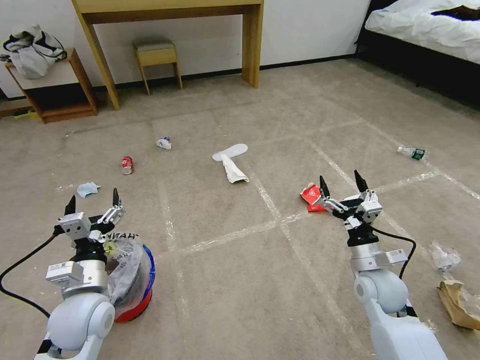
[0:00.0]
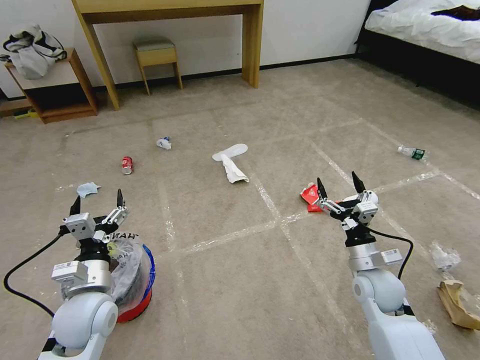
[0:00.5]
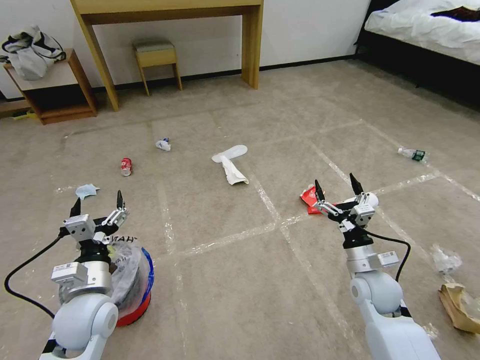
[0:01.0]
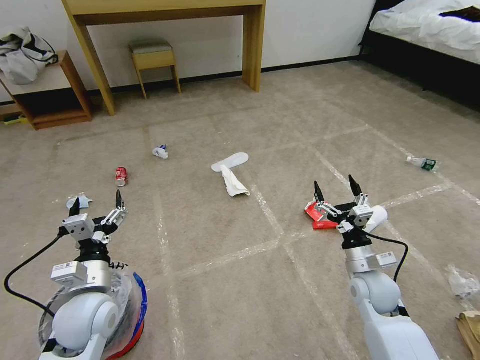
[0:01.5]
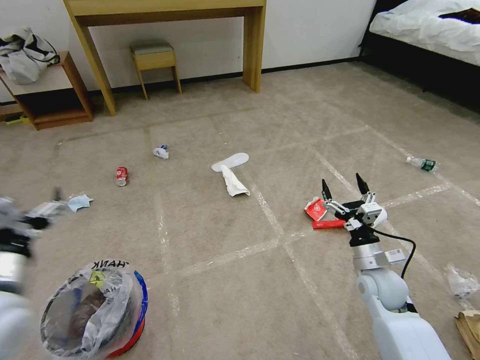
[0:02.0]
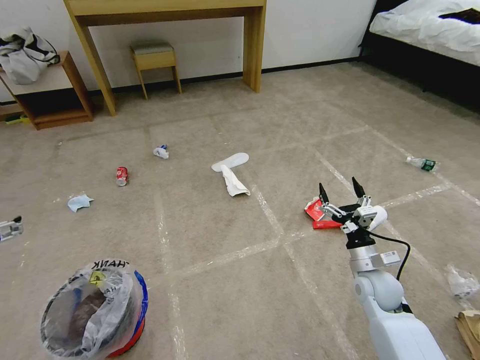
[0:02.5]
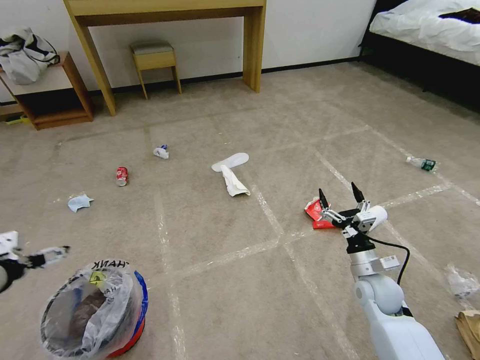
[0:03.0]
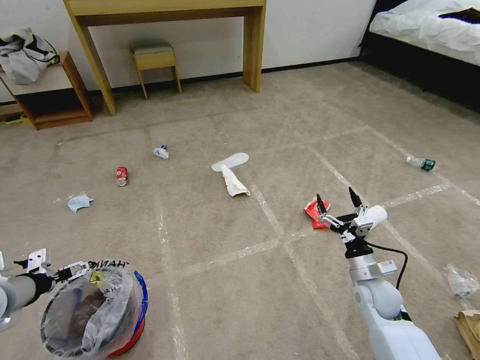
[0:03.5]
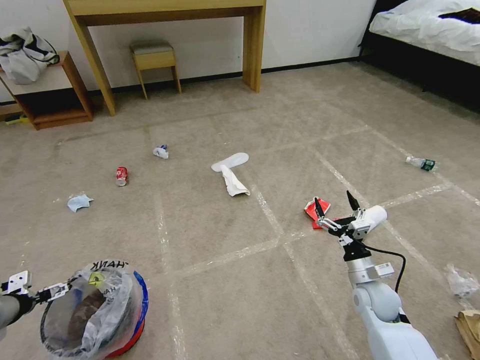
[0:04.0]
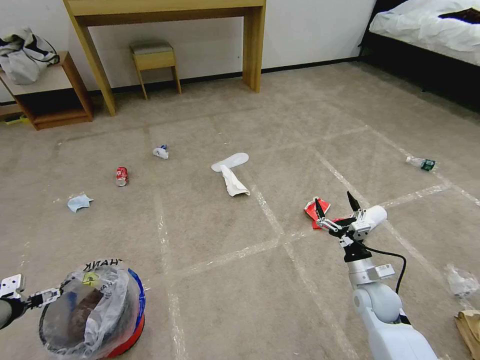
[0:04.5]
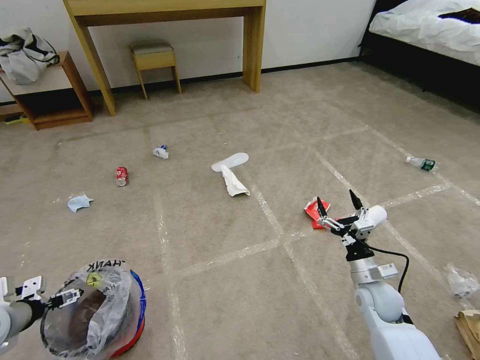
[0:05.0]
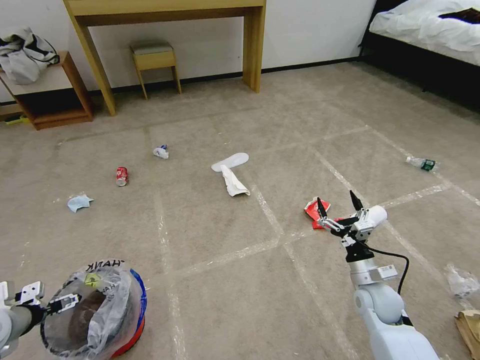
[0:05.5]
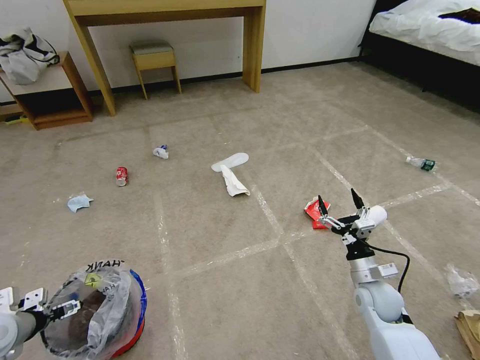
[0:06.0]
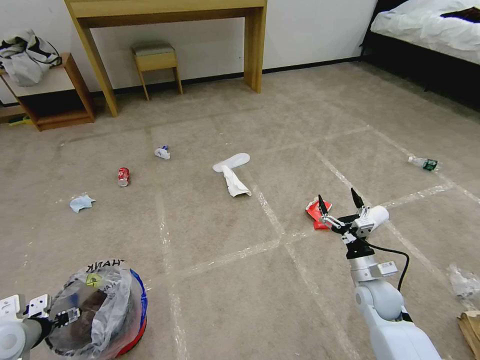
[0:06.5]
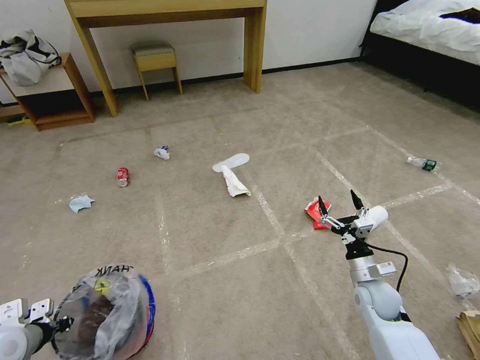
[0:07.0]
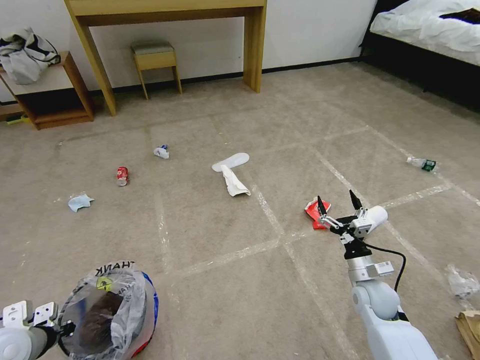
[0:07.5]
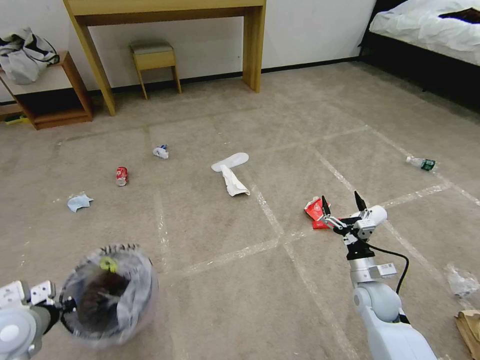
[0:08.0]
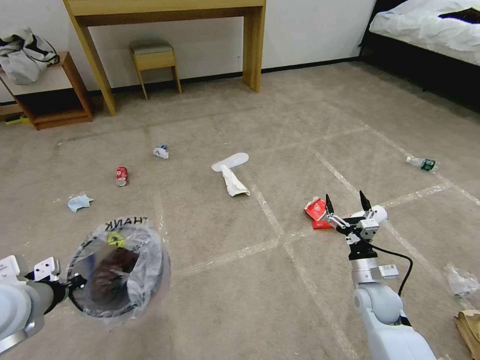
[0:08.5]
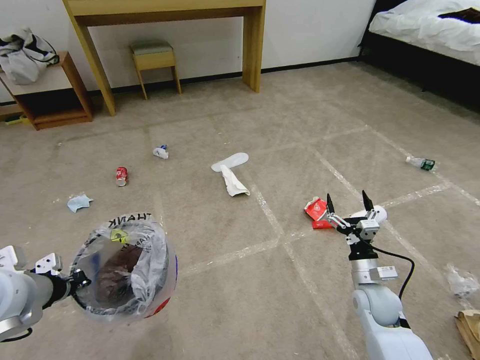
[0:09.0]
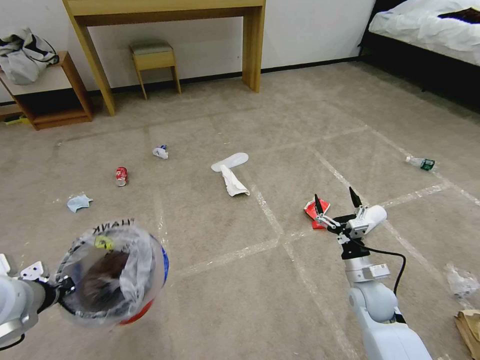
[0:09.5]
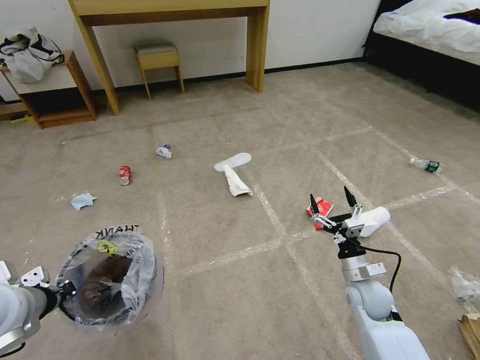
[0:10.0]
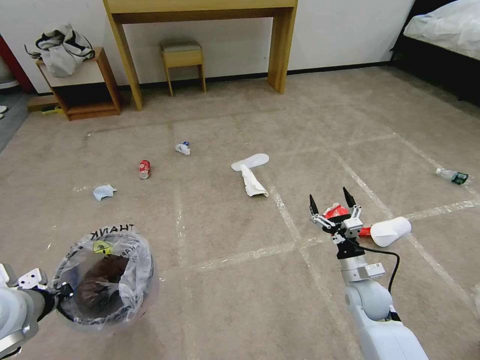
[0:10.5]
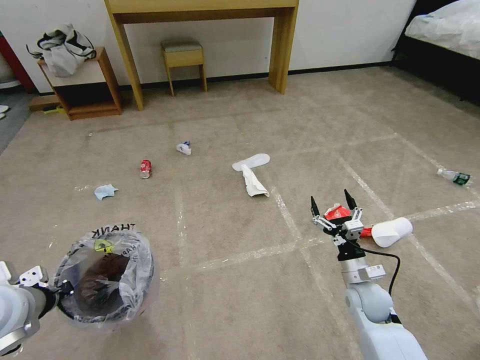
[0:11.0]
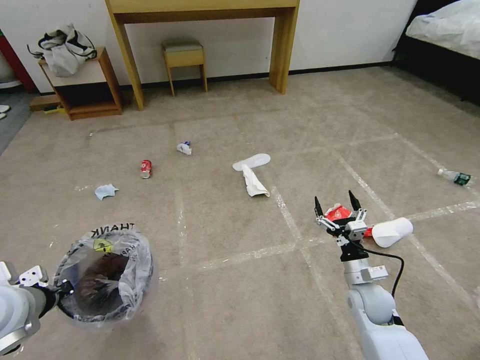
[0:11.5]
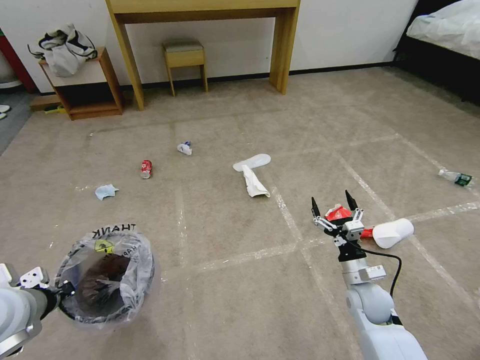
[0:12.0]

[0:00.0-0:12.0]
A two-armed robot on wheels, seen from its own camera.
Task of the whole recording: Pick up the trash bin and place the garbage on the floor into it.
0:02.0 to 0:04.0: The right gripper shifts by roughly 5 cm. Meanwhile the left gripper is displaced to the left and downward by approximately 20 cm.
0:04.0 to 0:06.0: There are only small adjustments of the grippers.
0:06.0 to 0:08.0: The left gripper heads to the right, covering roughly 5 cm, and closes its fingers.
0:08.0 to 0:10.0: The left gripper is displaced upward by approximately 10 cm.

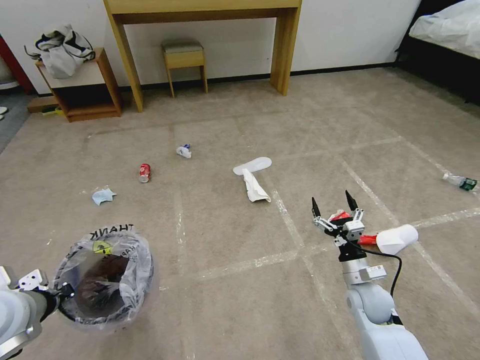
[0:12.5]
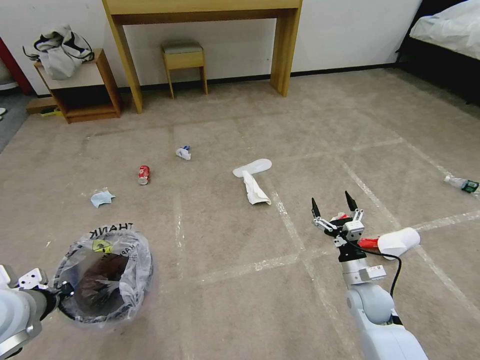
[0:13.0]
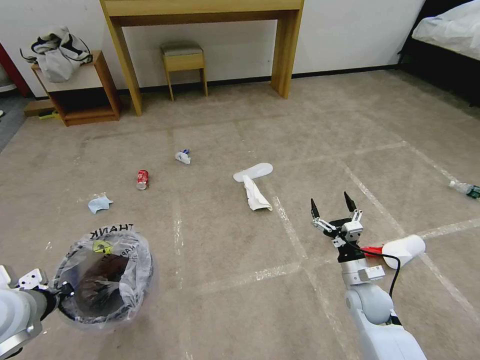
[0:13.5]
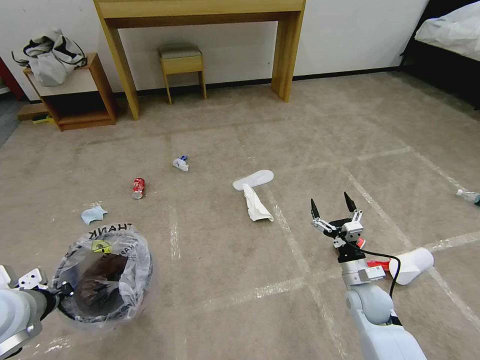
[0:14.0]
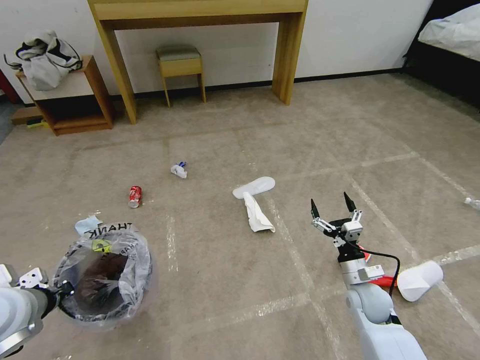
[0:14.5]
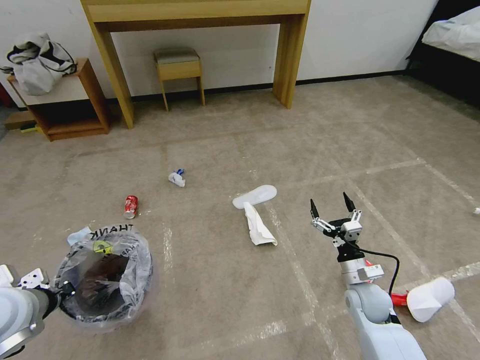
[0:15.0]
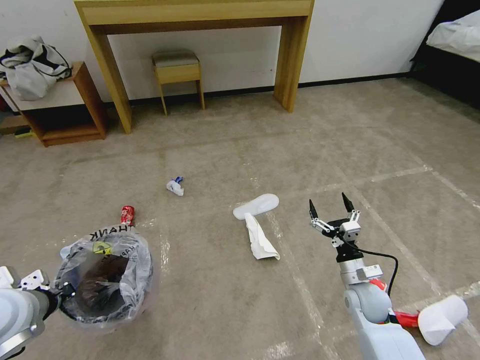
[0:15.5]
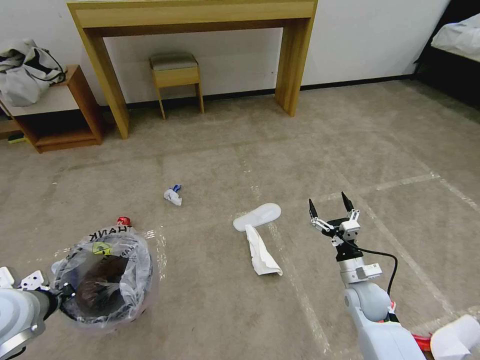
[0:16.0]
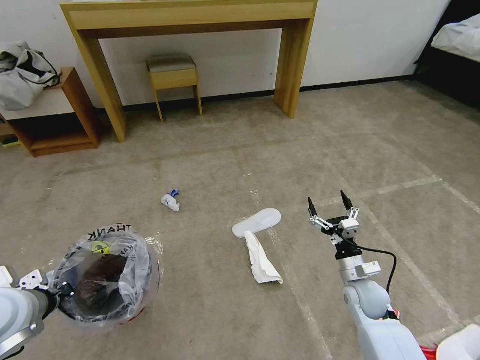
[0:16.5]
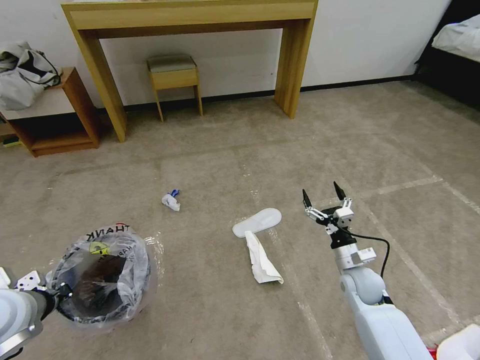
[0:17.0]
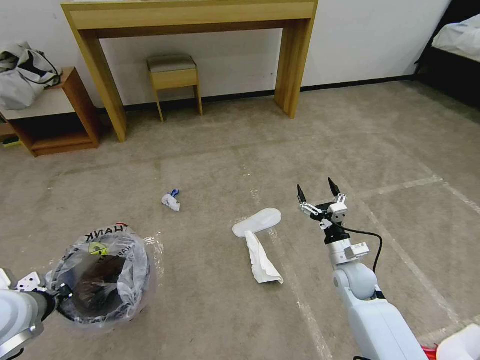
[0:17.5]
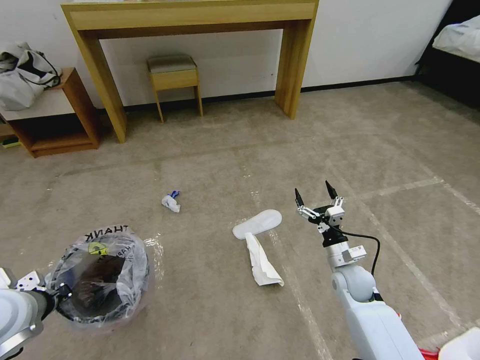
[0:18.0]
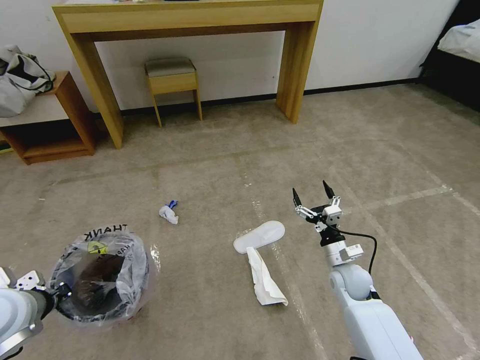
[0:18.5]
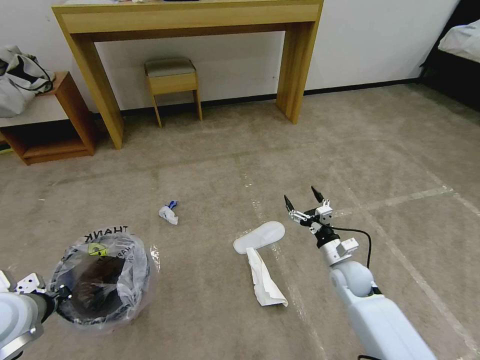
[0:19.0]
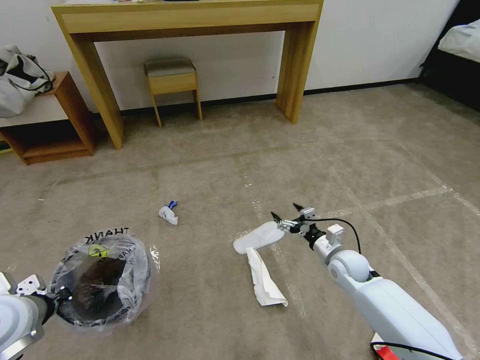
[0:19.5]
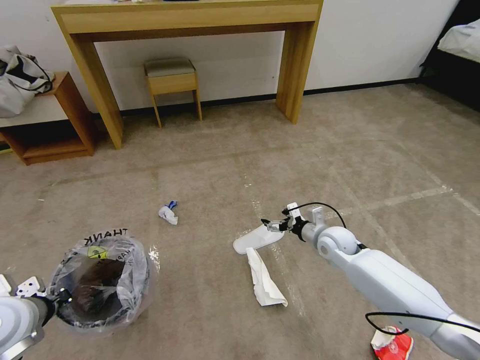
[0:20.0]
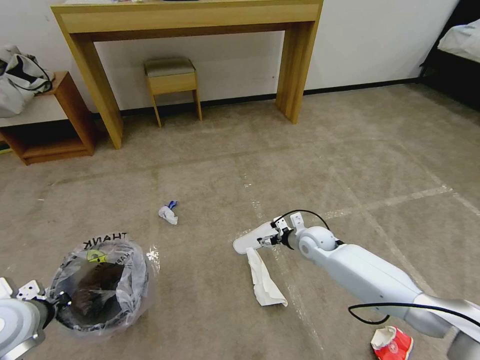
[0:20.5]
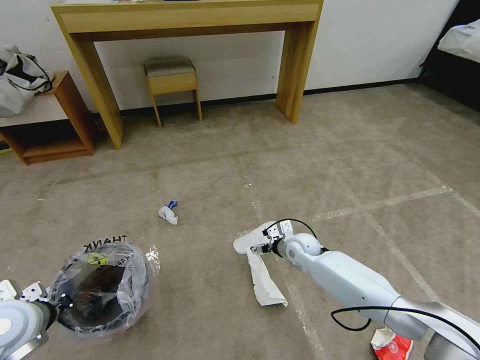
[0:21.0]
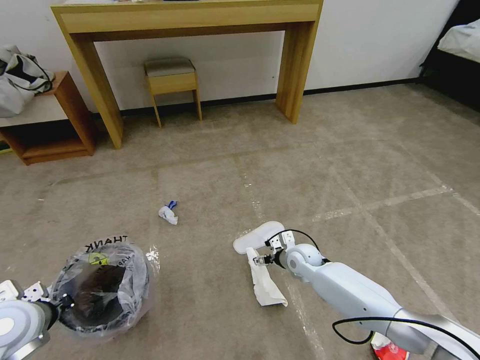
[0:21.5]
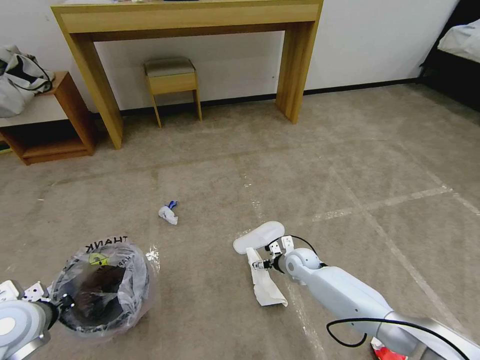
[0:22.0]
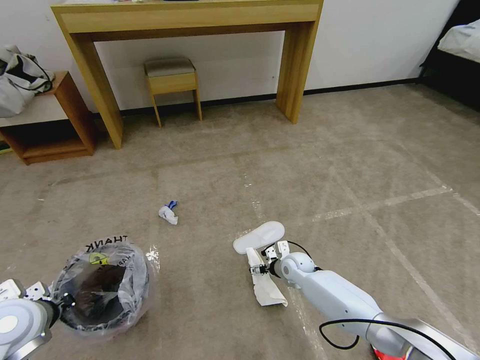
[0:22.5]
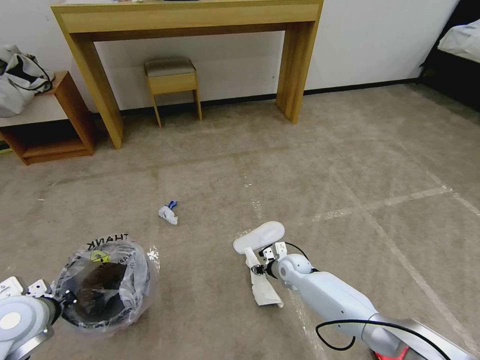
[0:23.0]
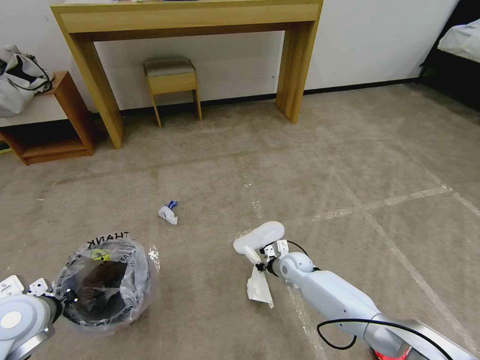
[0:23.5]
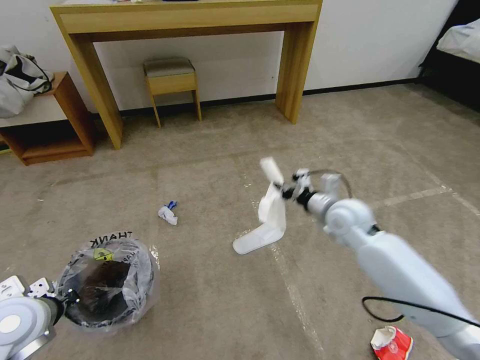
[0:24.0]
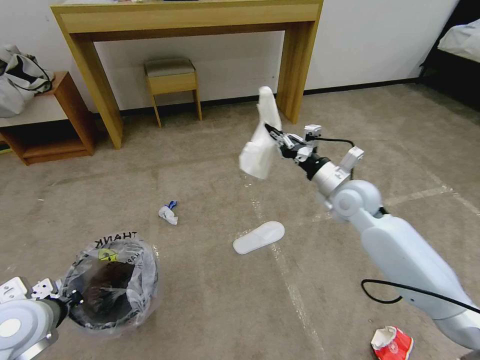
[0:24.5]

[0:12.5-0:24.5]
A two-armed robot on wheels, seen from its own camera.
Task of the whole recording: Pick up the trash bin and place the garbage on the floor into it.
0:16.5 to 0:18.5: The grippers move only a little.
0:18.5 to 0:20.5: The right gripper goes roughly 10 cm forward and to the left.
0:20.5 to 0:22.5: The right gripper travels downward by some 10 cm.
0:22.5 to 0:24.5: The right gripper heads upward, covering roughly 30 cm, and closes.

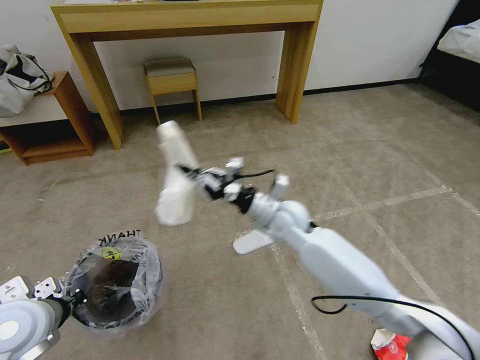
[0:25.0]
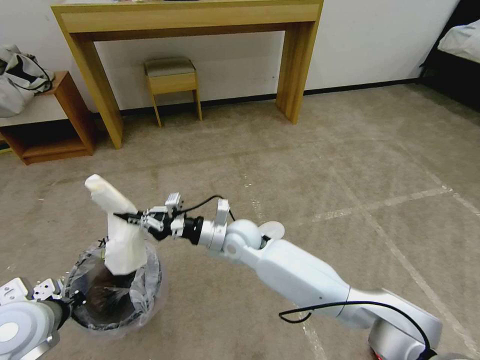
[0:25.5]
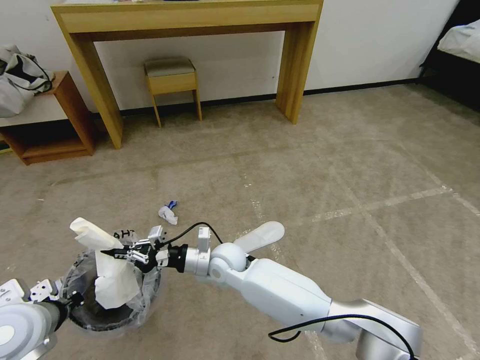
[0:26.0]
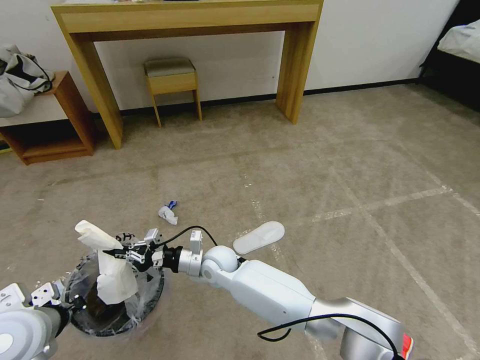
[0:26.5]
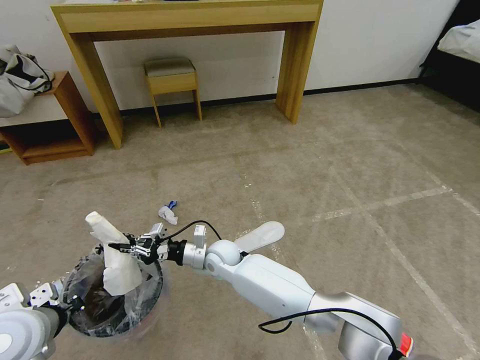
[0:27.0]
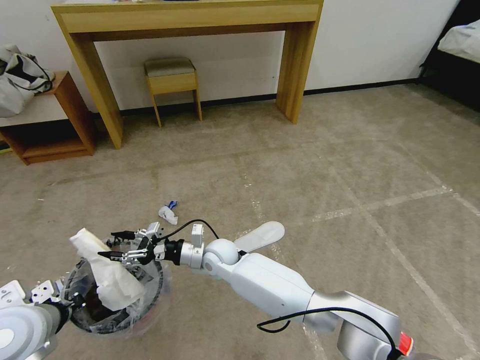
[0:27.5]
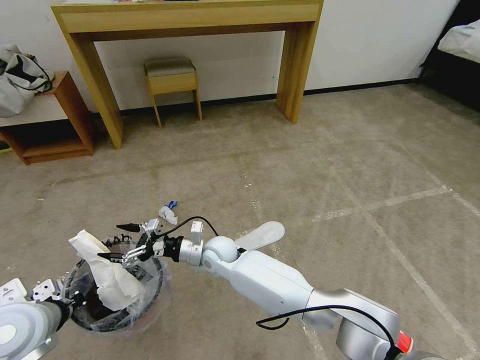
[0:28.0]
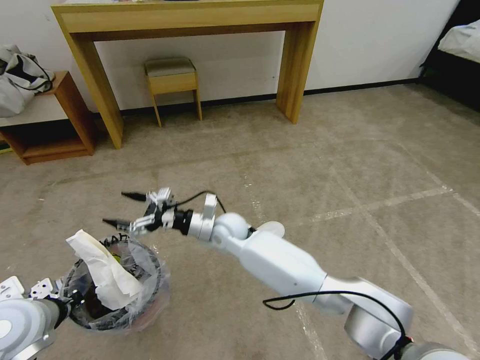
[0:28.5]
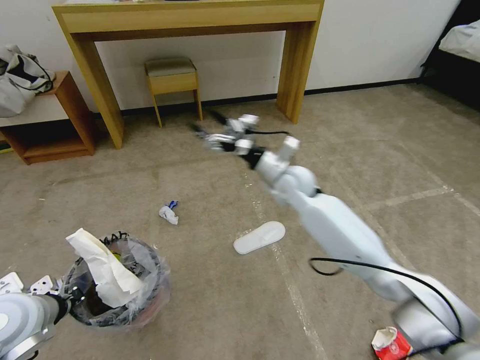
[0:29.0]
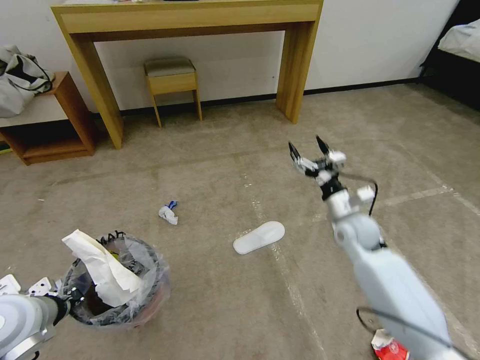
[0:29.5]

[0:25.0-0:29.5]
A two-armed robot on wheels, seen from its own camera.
Task of the whole recording: Pick up the trash bin and place the garbage on the floor into it.
0:25.0 to 0:27.0: The right gripper shifts roughly 20 cm to the left and downward.
0:27.0 to 0:29.5: The right gripper goes roughly 35 cm to the right, and opens.
